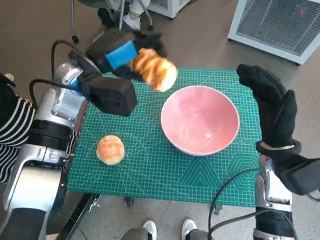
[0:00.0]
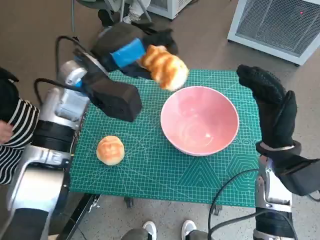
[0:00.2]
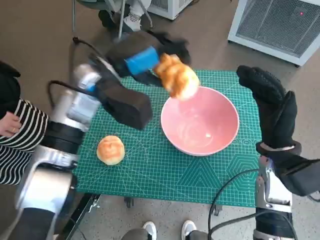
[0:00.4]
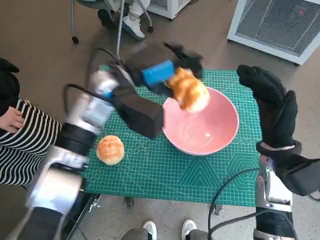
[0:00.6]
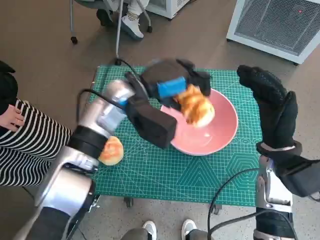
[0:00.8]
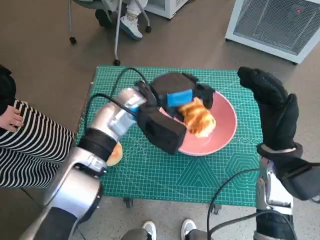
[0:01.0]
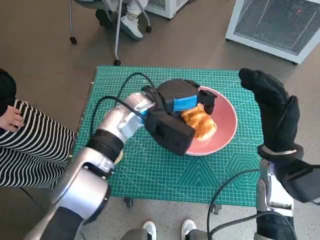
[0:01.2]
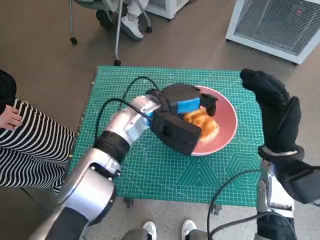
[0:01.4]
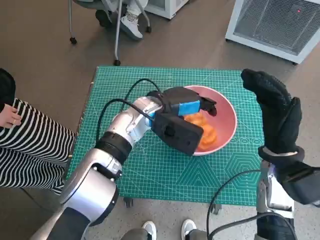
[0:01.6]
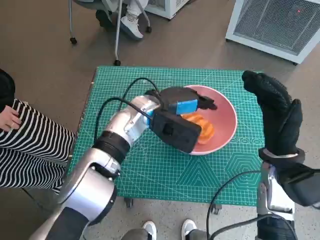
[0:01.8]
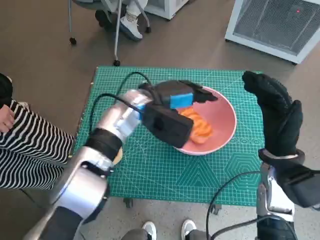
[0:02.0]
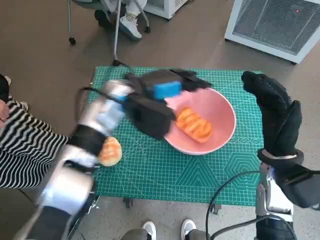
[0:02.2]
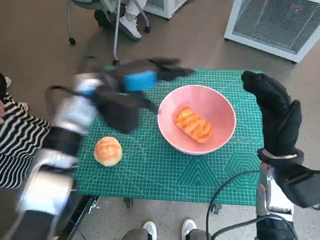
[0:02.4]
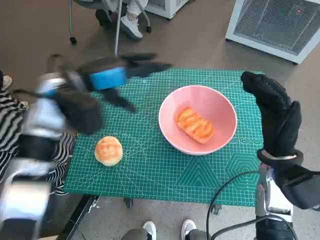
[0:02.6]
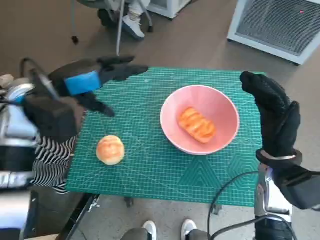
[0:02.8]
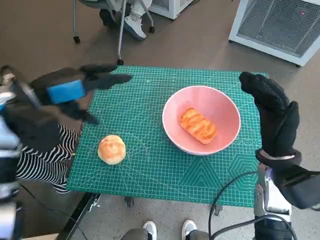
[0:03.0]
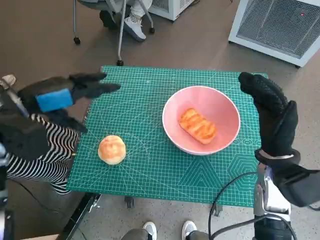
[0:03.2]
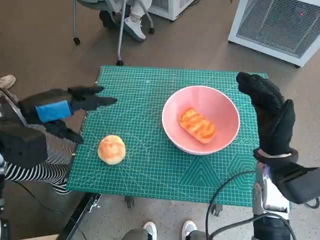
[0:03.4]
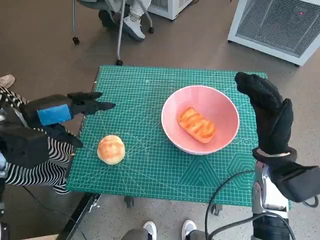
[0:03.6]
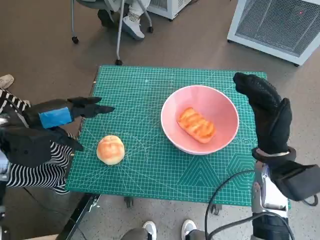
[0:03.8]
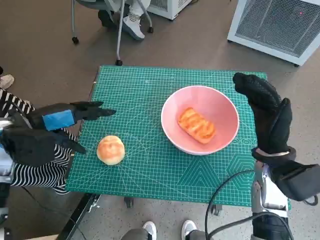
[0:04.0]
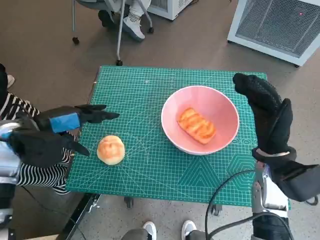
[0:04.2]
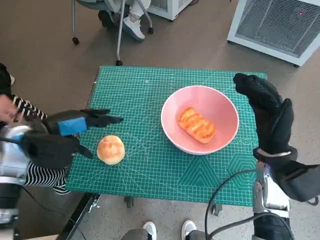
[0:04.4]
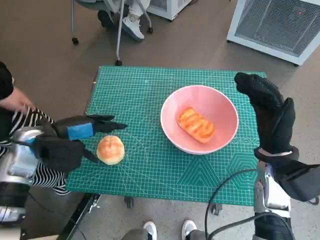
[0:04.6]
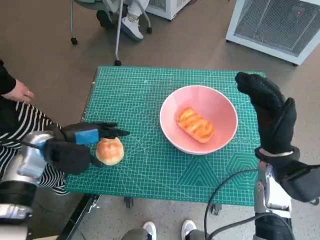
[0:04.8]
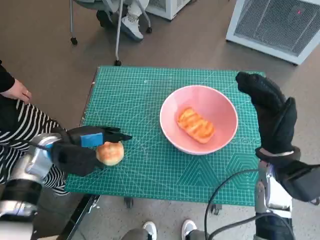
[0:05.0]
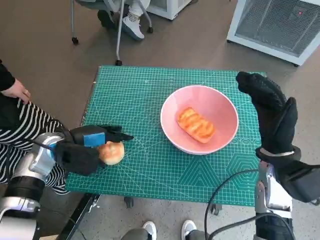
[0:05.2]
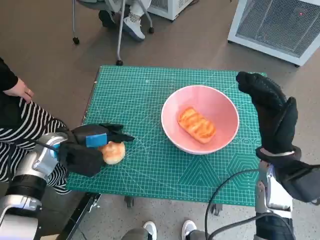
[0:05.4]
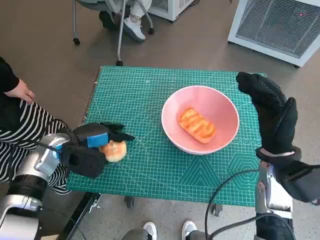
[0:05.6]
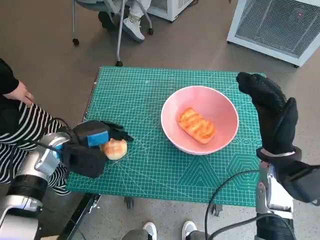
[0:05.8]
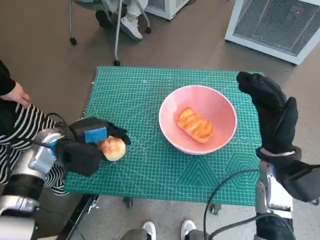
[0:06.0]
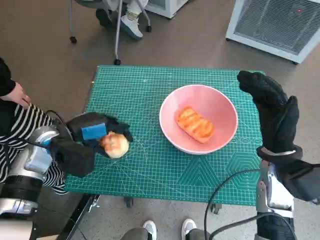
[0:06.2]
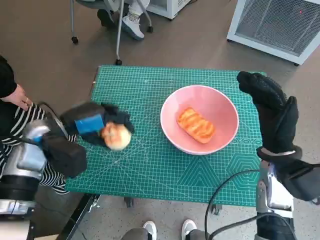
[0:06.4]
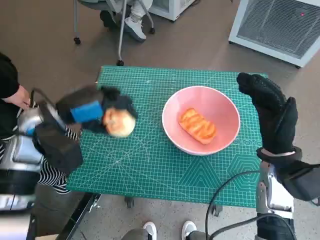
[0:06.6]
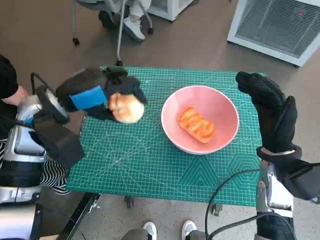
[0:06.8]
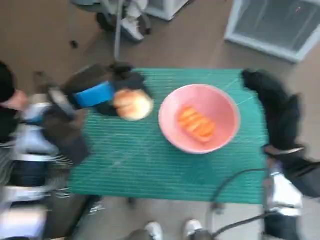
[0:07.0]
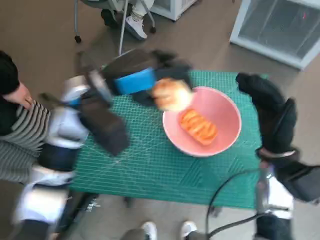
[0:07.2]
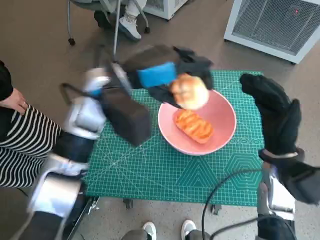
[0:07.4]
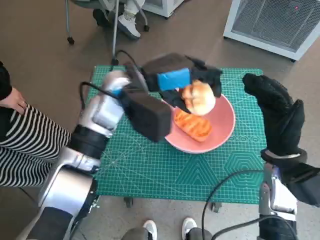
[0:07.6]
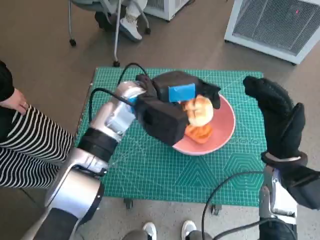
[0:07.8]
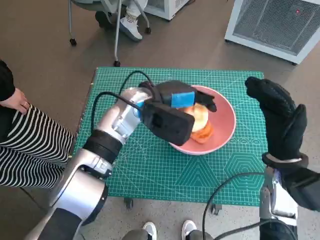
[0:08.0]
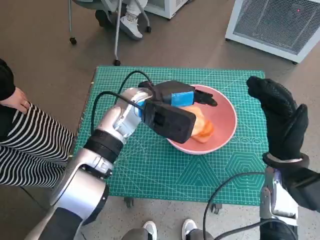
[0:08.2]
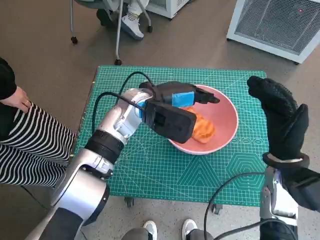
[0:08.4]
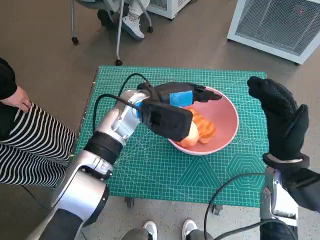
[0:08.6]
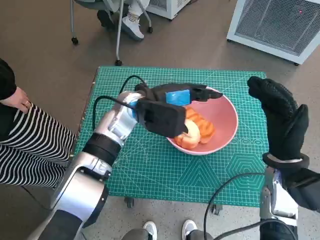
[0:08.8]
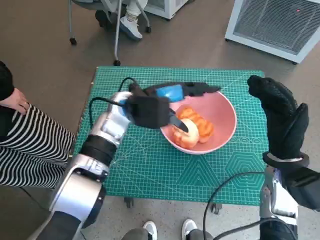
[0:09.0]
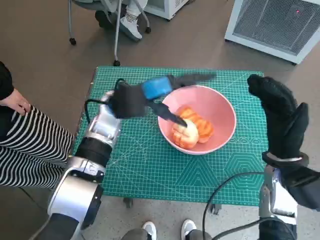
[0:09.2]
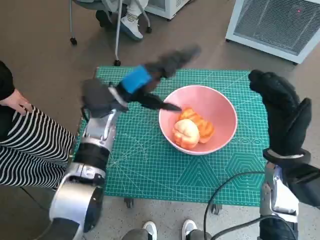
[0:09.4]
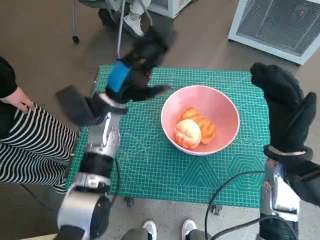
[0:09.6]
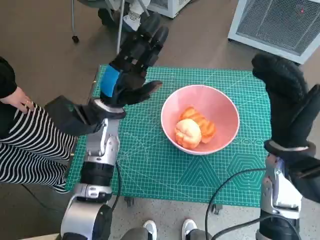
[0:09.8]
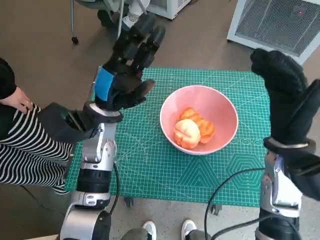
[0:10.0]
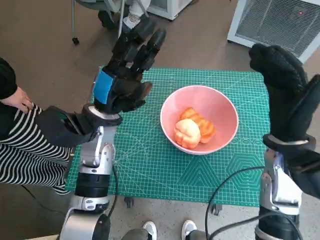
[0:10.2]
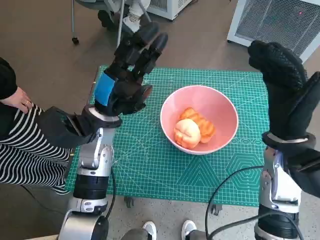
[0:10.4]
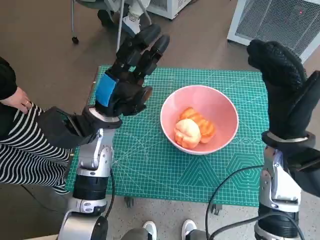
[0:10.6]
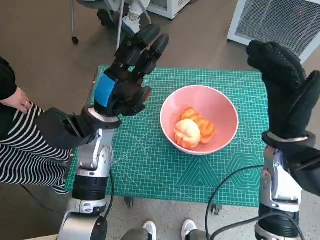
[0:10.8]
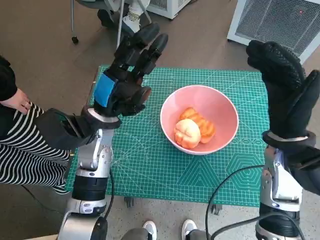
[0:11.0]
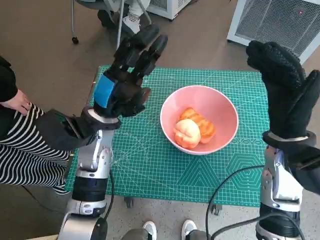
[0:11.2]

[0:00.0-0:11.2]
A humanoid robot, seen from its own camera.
Task of the whole recording: Push the bowl into the center of the table and put the bread into the bowl.
Step, 0:00.0 to 0:02.2: Place the long bread in pink bowl with left hand.
Step, 0:02.4 to 0:05.8: Grasp the round bread with left hand.
Step, 0:06.0 to 0:09.0: Place the round bread in pink bowl with left hand.
0:00.0 to 0:01.6: The left hand goes approximately 15 cm to the right and downward.
0:01.6 to 0:03.2: The left hand heads to the left, covering approximately 20 cm.
0:03.2 to 0:04.8: The left hand travels downward by roughly 10 cm.
0:06.4 to 0:08.0: The left hand is displaced to the right by roughly 20 cm.
0:08.0 to 0:09.6: The left hand is displaced to the left by some 5 cm.

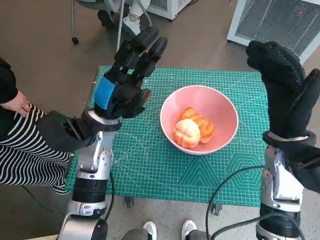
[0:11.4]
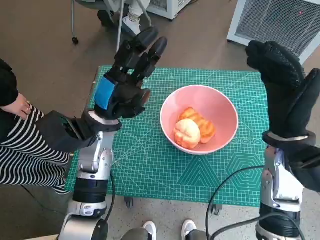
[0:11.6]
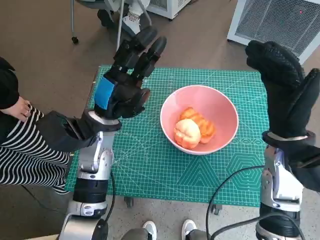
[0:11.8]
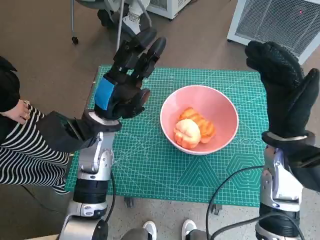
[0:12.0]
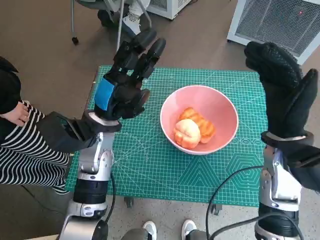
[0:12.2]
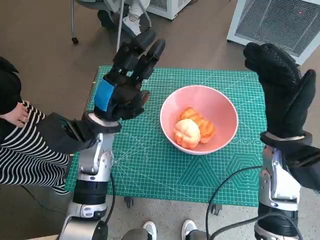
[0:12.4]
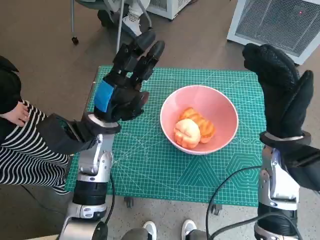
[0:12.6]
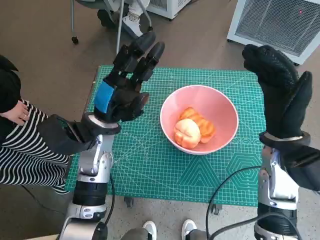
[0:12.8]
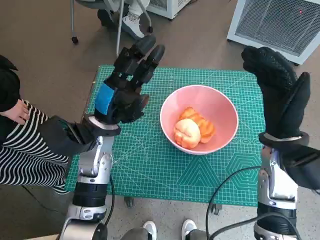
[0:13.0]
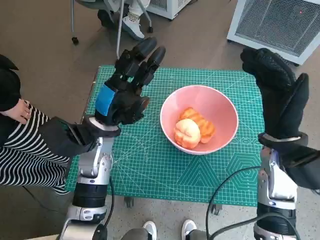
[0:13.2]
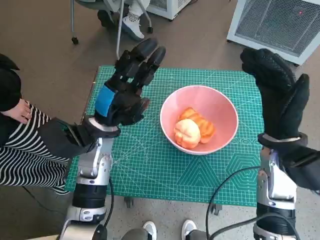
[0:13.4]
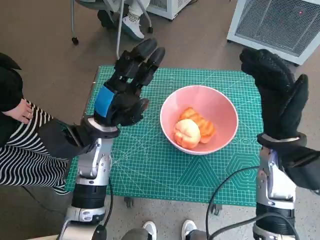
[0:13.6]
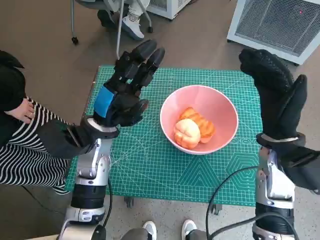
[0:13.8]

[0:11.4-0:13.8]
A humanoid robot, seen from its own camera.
Task of the whole recording: Push the bowl into the center of the table and put the bread into the bowl.
0:11.4 to 0:12.6: Both hands stay put.
0:12.6 to 0:13.8: The two hands keep their place.

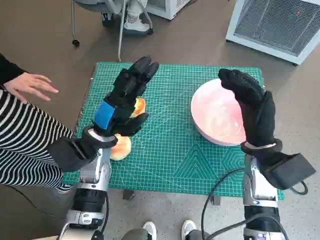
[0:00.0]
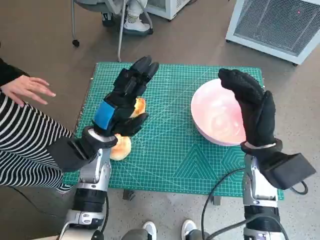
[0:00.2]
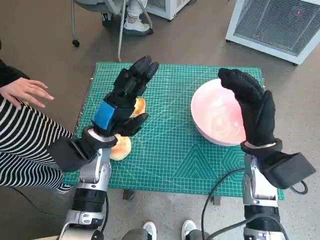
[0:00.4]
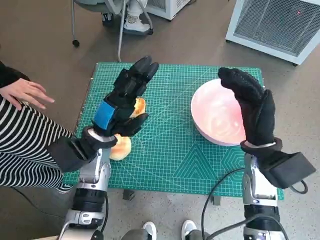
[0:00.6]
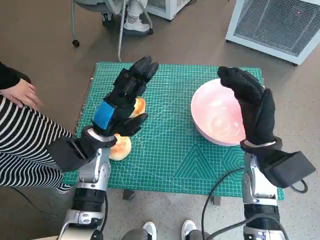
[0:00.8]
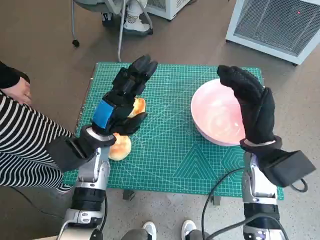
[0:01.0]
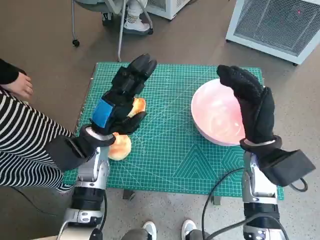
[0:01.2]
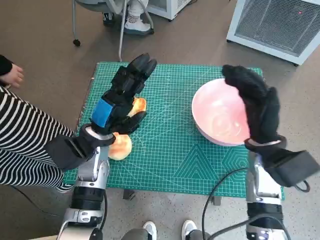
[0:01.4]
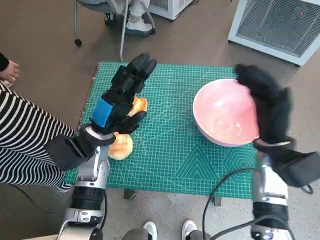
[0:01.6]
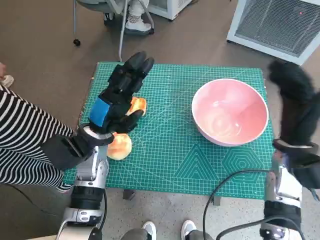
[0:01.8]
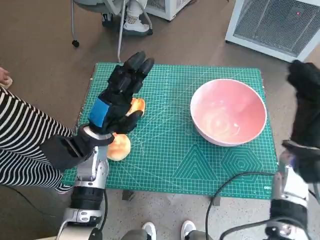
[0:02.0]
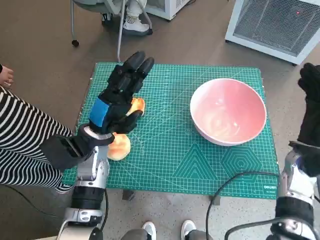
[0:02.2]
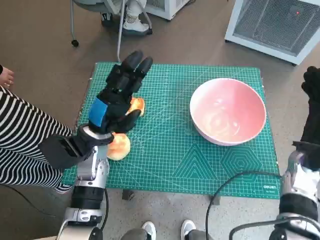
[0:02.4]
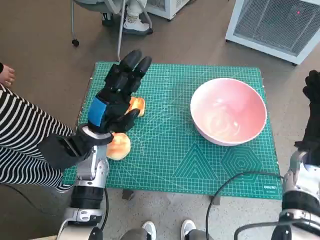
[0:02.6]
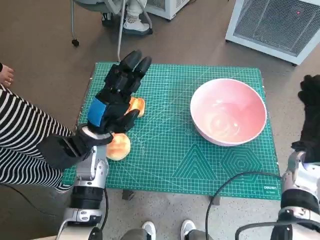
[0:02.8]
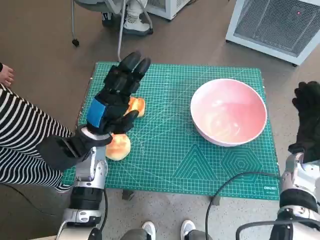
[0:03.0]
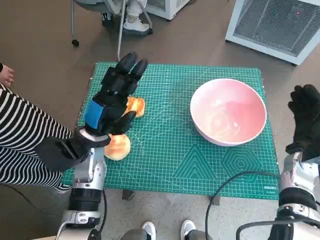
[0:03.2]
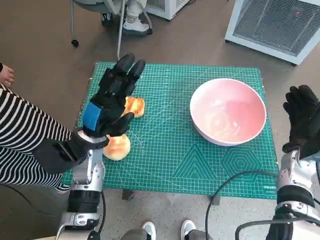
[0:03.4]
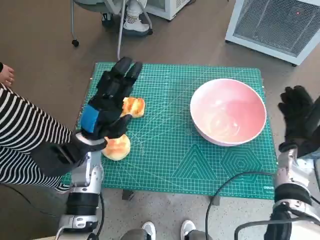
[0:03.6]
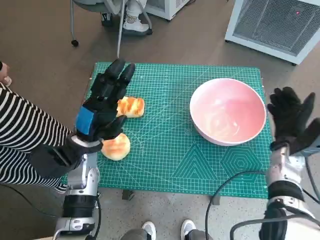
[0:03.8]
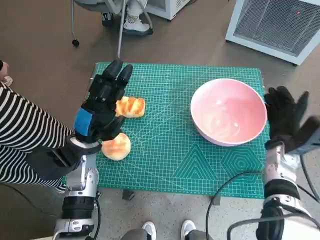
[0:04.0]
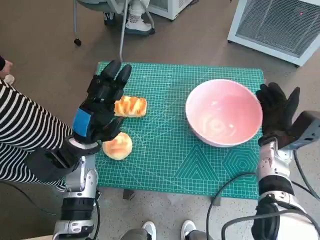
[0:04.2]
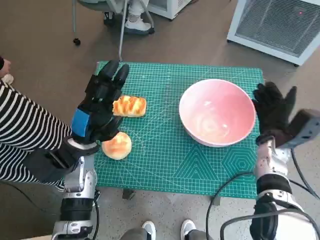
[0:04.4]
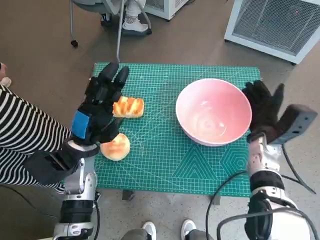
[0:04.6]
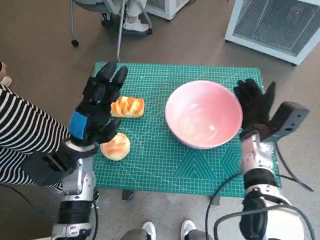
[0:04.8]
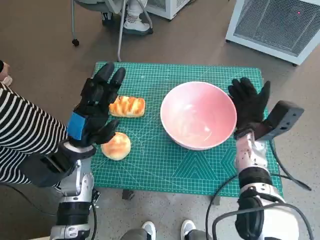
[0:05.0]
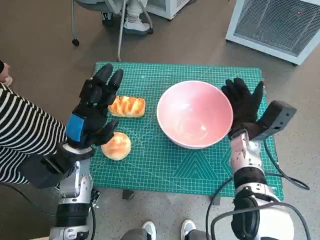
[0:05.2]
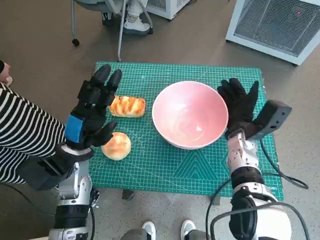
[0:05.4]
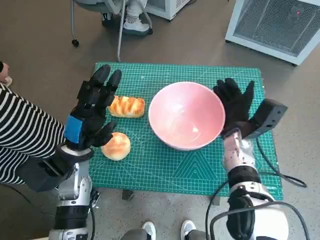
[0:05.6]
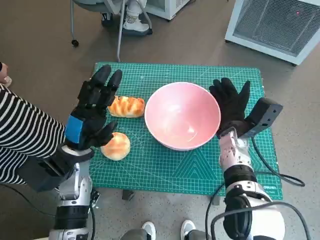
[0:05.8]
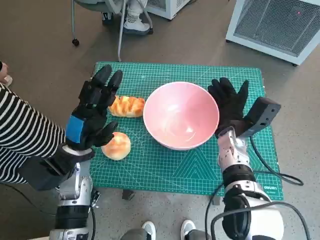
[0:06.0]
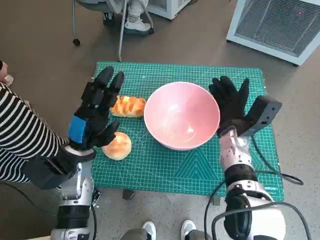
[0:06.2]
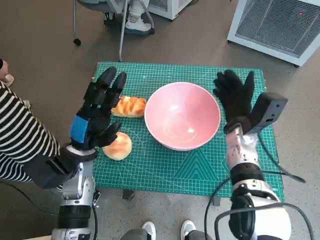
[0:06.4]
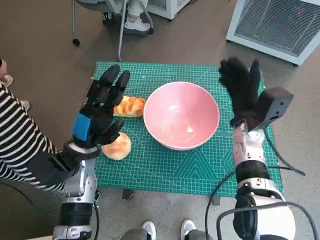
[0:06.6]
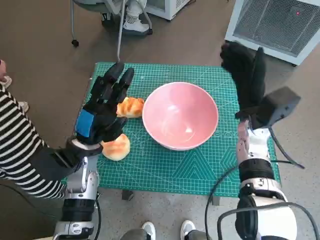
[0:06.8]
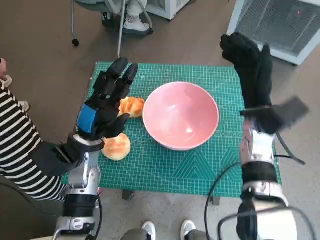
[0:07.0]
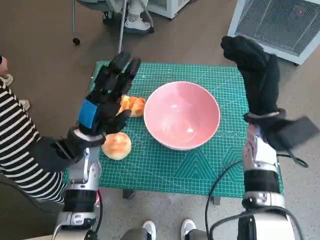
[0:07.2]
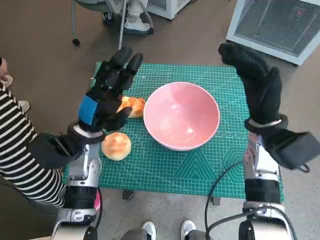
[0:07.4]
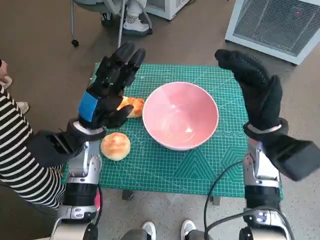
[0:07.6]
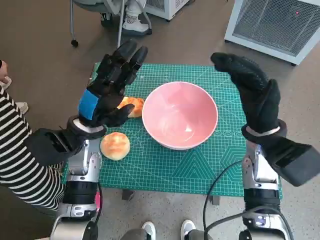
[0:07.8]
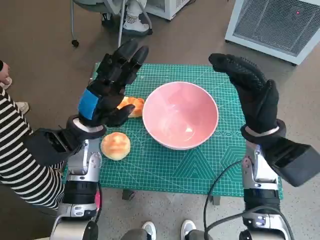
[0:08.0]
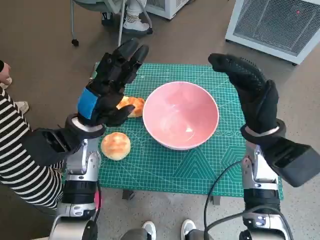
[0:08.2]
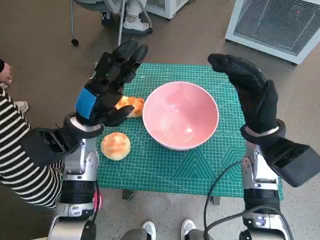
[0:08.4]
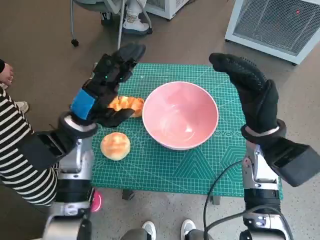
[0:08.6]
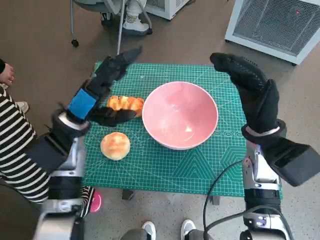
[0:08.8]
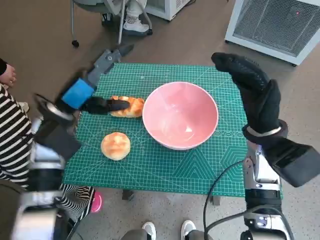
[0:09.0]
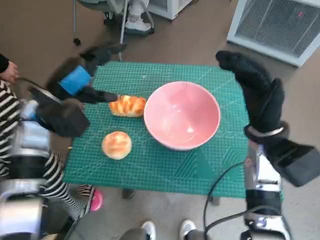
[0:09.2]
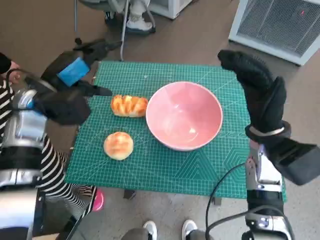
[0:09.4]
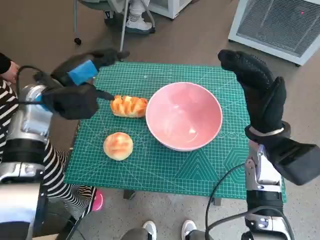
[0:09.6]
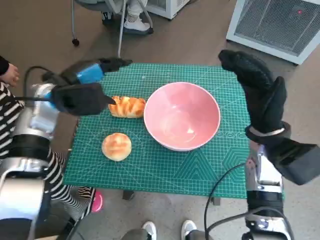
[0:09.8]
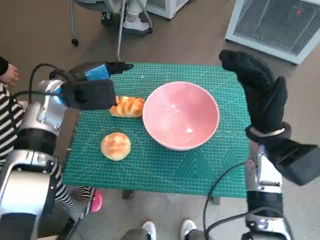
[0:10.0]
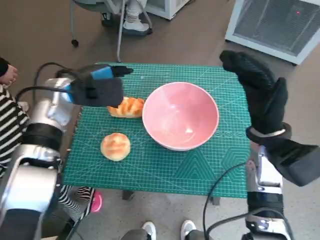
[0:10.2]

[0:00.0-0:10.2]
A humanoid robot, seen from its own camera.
Task of the whole recording: Push the bowl into the center of the table and put the bread into the bowl.
Step, 0:00.0 to 0:06.4: Move the pink bowl to the center of table with right hand.
0:01.4 to 0:03.0: The right hand travels to the right and downward by roughly 10 cm.
0:03.0 to 0:04.4: The right hand travels to the left by roughly 5 cm.
0:04.4 to 0:05.8: The right hand goes roughly 10 cm to the left.
0:05.8 to 0:07.2: The right hand goes roughly 10 cm upward.
0:08.8 to 0:10.2: The left hand is displaced forward by about 5 cm.
